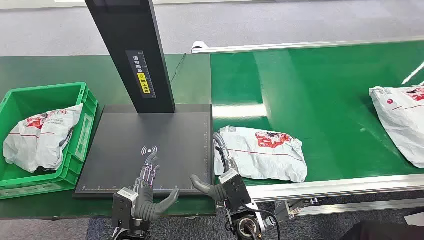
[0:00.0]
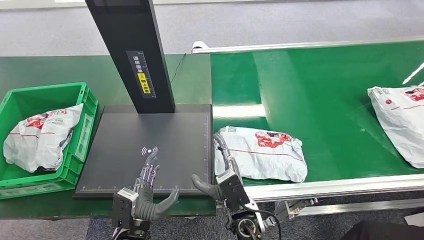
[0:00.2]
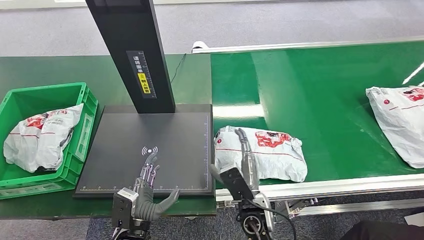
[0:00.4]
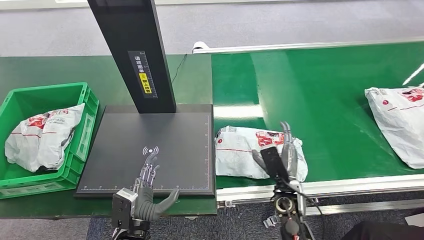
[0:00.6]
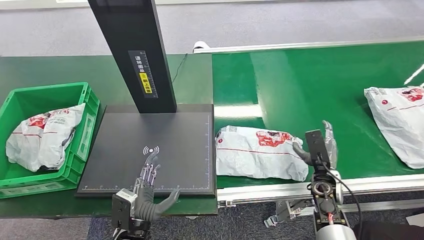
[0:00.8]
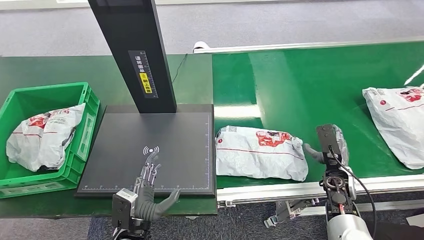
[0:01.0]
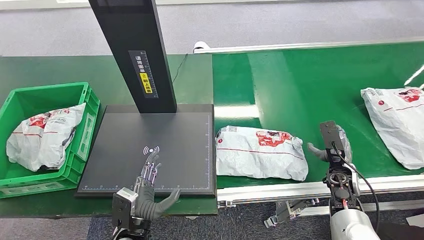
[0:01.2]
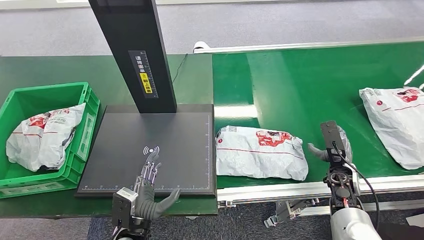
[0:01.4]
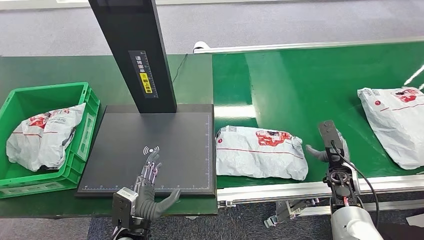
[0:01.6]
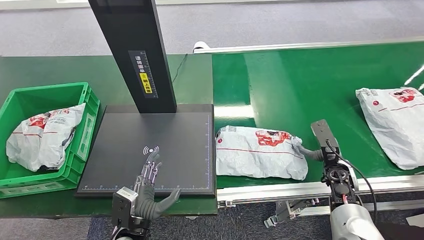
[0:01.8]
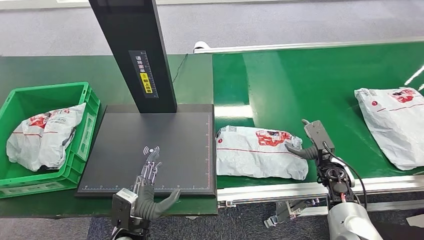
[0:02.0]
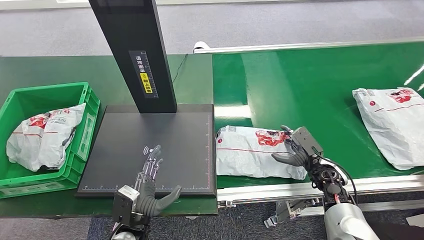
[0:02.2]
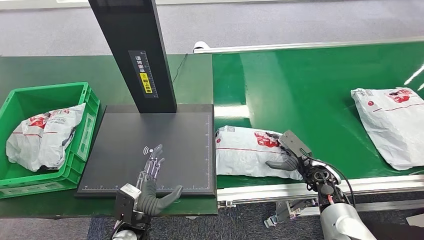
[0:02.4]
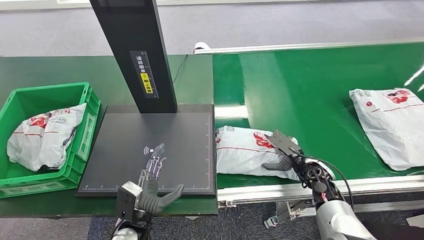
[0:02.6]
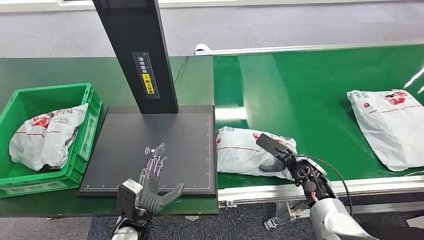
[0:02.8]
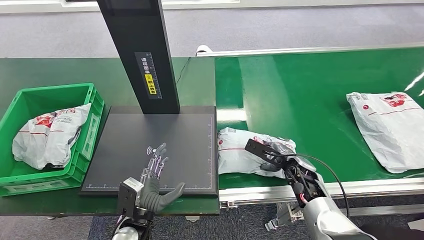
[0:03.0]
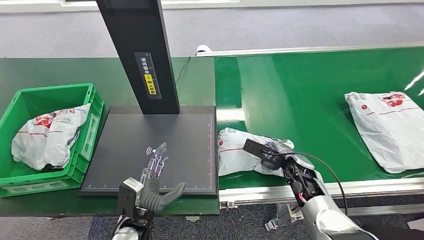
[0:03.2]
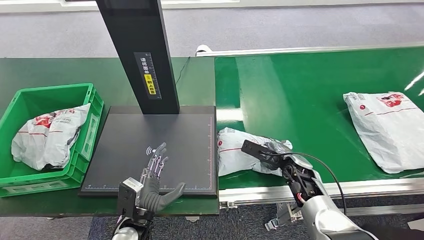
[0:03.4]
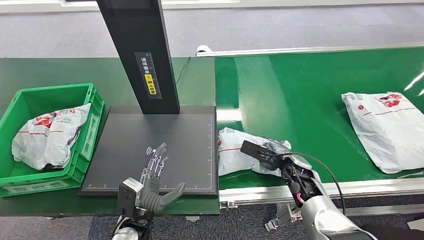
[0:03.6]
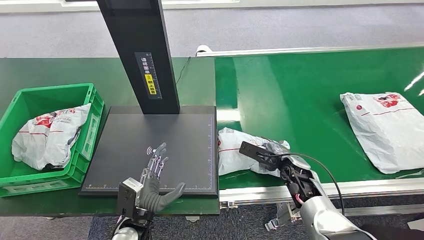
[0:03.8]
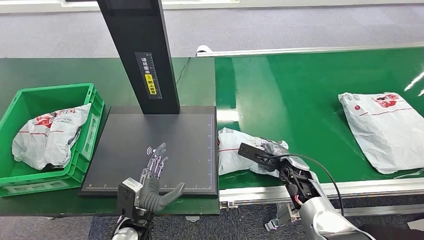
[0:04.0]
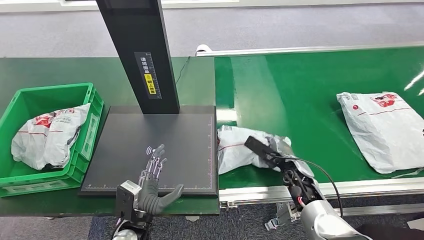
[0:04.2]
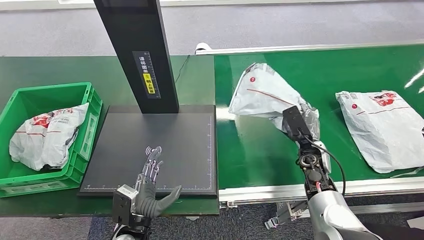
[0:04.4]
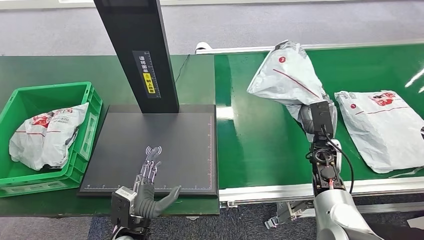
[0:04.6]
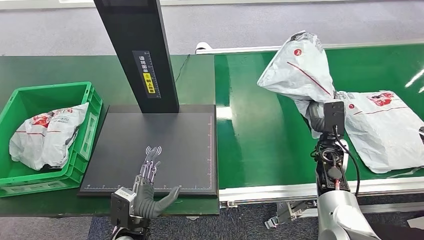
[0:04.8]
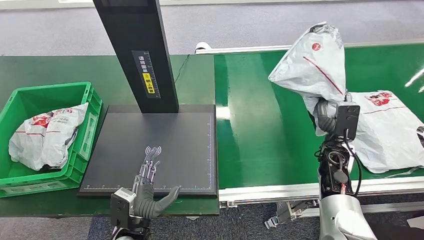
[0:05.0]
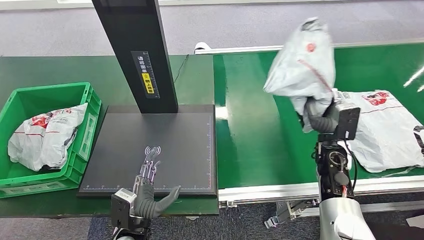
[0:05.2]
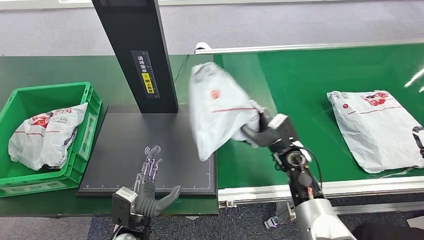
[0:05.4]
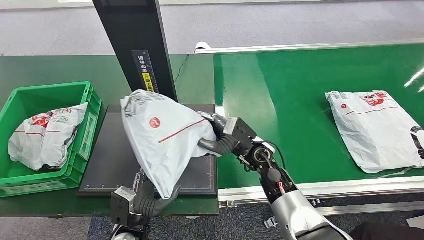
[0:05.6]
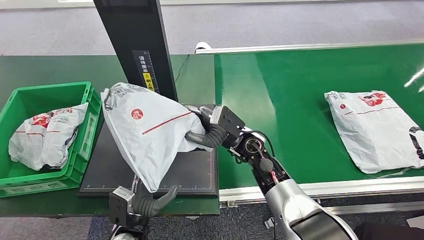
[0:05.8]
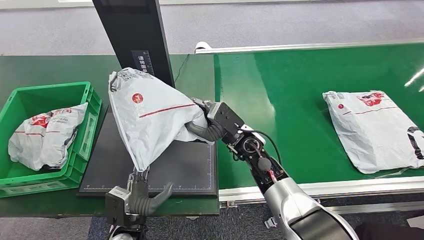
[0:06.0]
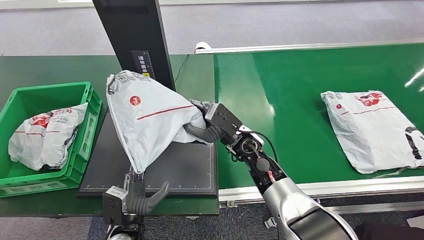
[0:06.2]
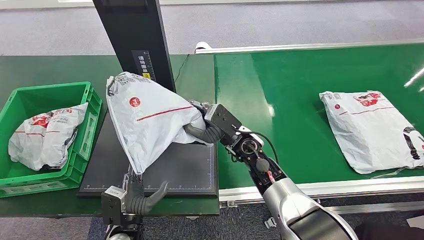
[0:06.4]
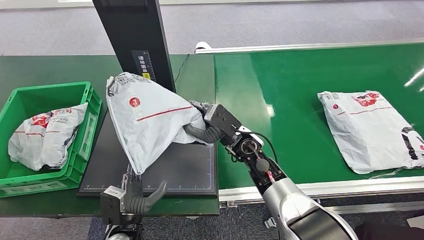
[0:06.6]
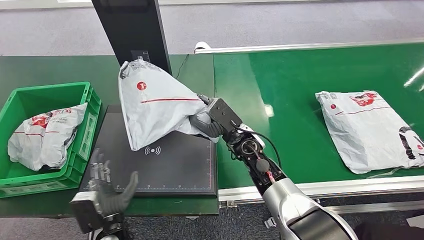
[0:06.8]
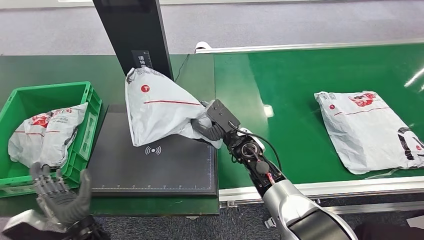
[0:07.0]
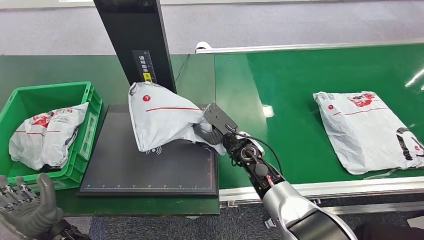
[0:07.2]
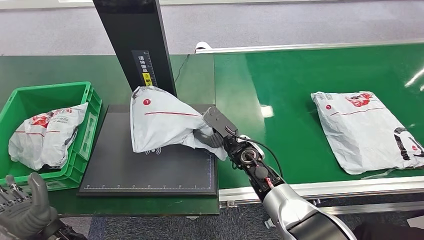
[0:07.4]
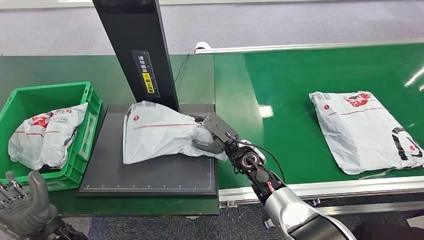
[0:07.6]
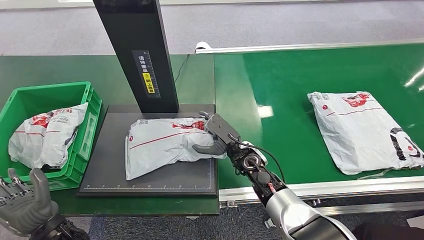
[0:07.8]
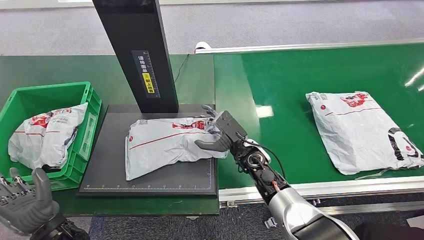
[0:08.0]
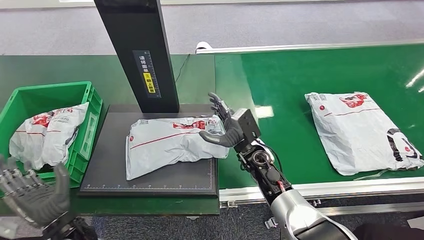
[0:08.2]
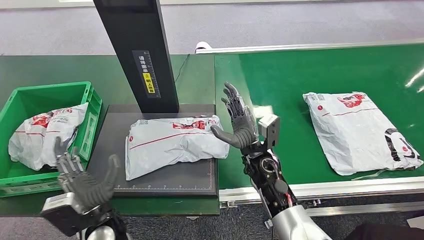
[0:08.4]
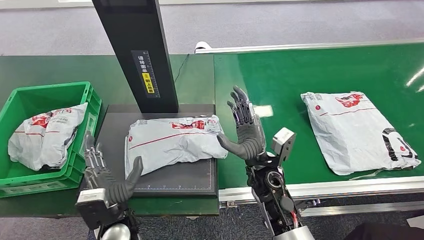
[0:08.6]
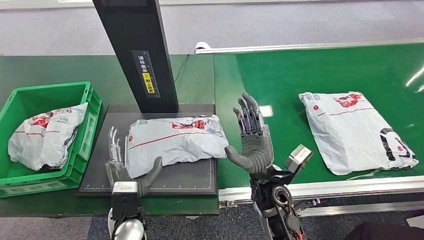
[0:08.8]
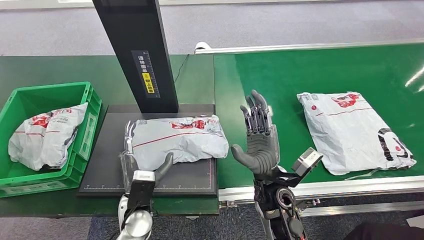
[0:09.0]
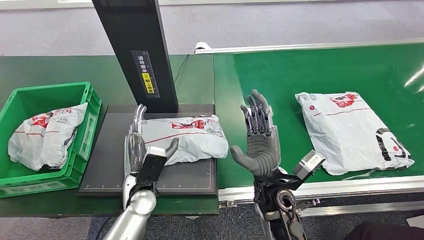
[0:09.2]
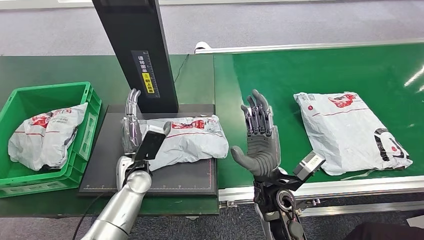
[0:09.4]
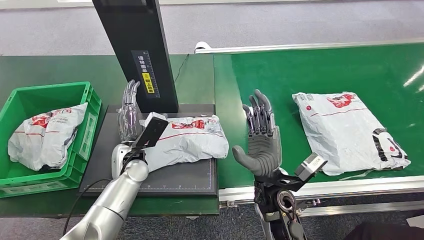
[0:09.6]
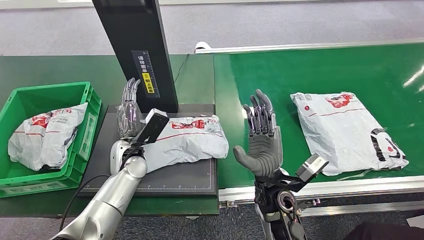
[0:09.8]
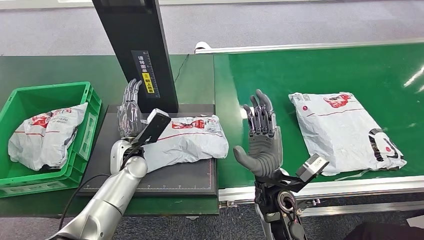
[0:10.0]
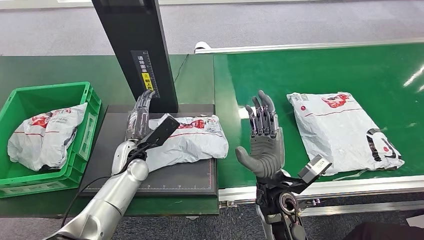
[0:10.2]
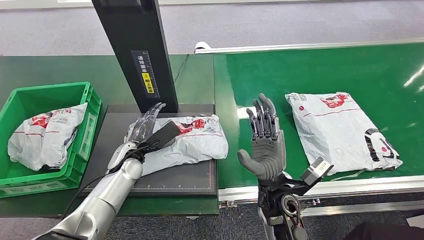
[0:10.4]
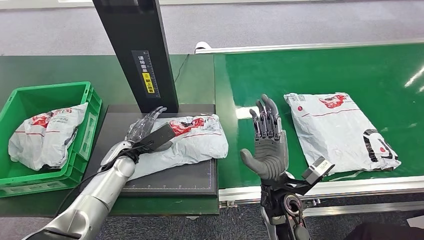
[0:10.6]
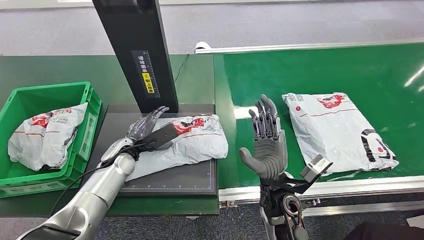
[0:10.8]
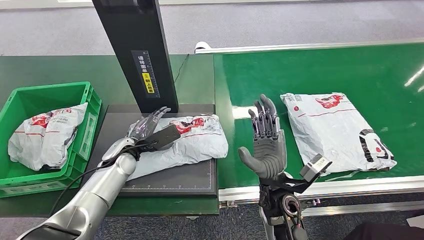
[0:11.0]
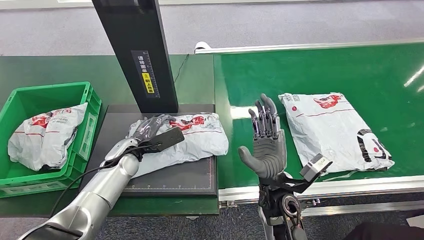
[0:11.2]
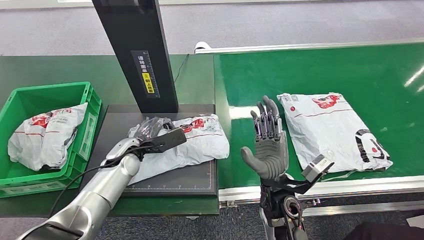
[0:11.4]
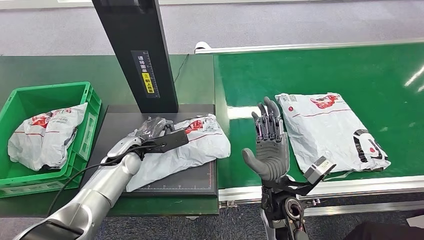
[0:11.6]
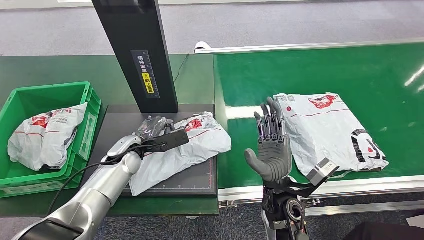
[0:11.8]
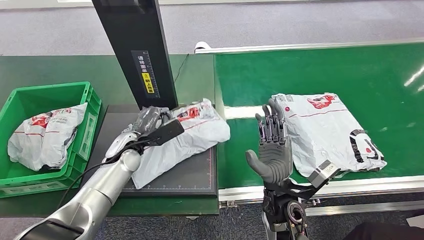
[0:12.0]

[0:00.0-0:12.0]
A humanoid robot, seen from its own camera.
Step, 0:00.0 to 0:04.8: Pick up the package from the conveyor belt.
Step, 0:05.2 to 0:08.6: Place the package onto the inbound machine.
0:09.0 to 0:10.4: The left hand shifts about 15 cm forward and to the left.
0:10.4 to 0:12.0: There are only small adjustments of the hands.

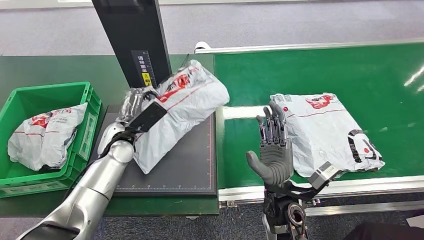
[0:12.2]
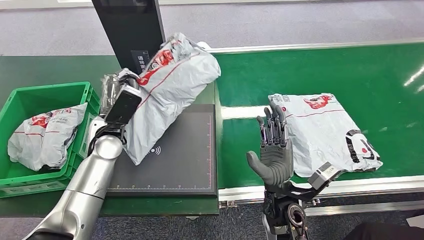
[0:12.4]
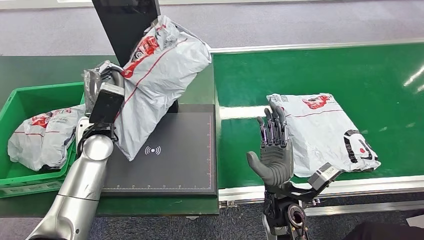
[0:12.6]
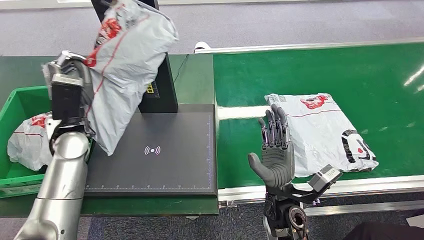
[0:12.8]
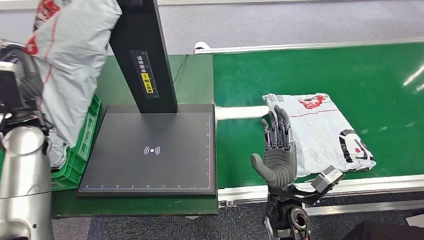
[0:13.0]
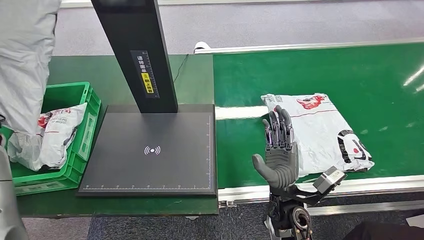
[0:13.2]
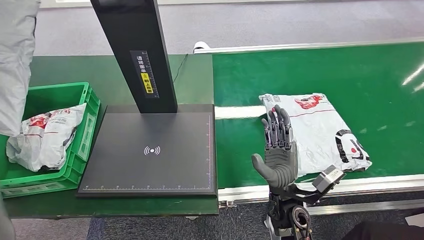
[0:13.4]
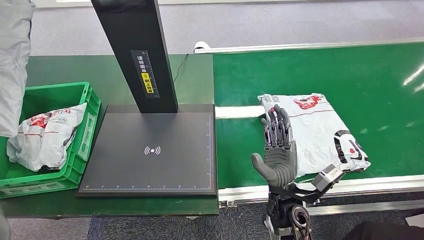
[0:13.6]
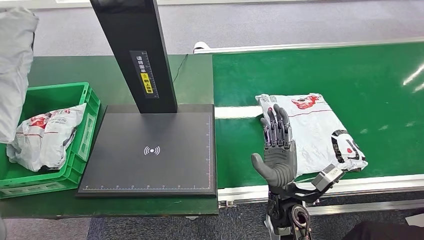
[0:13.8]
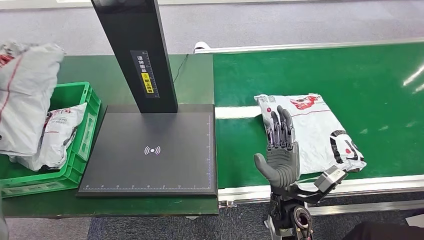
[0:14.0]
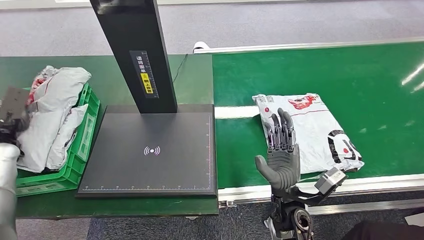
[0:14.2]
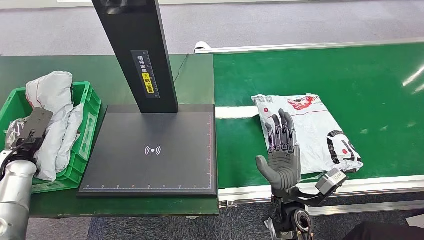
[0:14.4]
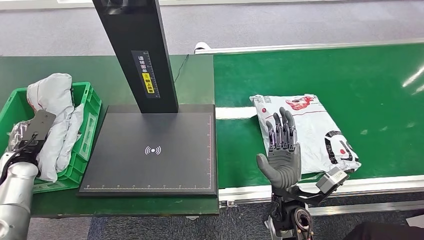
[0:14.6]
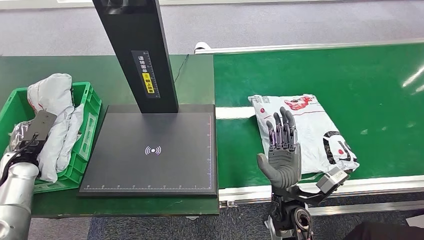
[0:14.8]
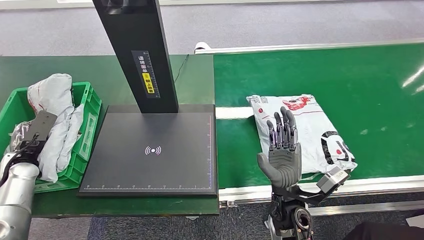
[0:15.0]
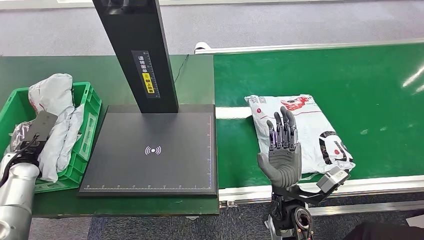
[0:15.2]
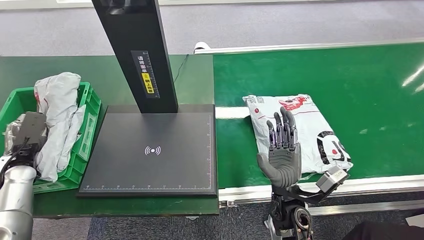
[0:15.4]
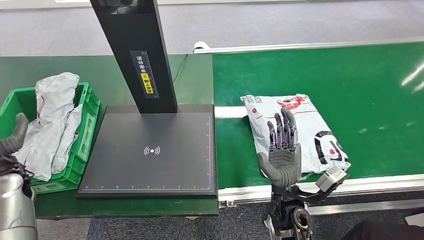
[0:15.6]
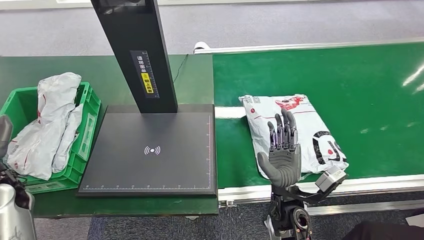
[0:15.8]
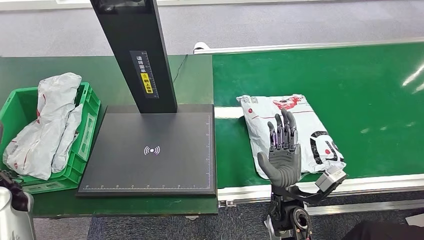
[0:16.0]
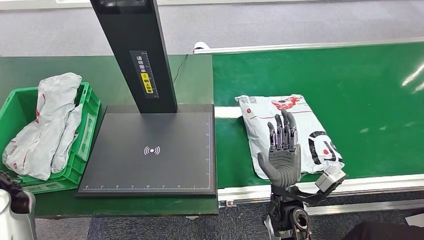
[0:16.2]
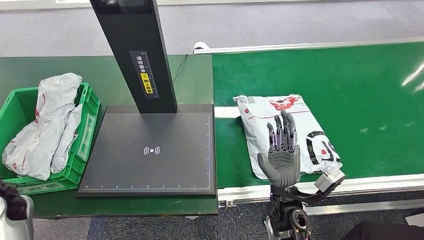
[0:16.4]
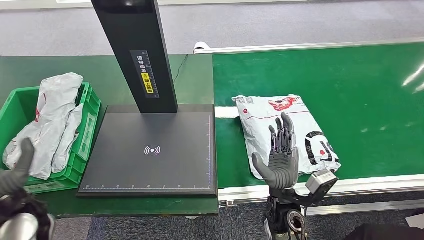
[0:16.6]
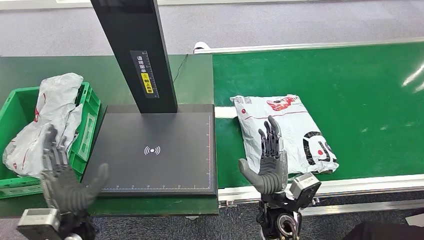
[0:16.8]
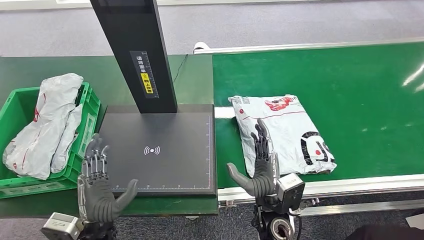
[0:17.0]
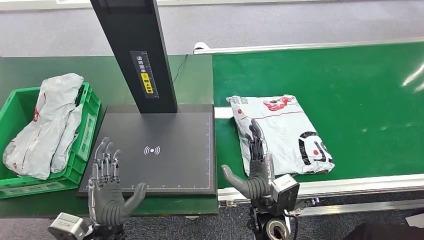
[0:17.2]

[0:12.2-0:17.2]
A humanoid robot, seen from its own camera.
Step, 0:13.0 to 0:17.2: Place the package into the parcel locker.
0:13.8 to 0:15.6: The left hand moves downward, to the right and backward, roughly 15 cm.
0:15.6 to 0:17.2: The left hand is displaced to the right and backward by about 30 cm, while the right hand shifts by some 5 cm.
